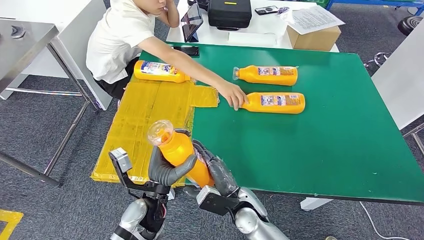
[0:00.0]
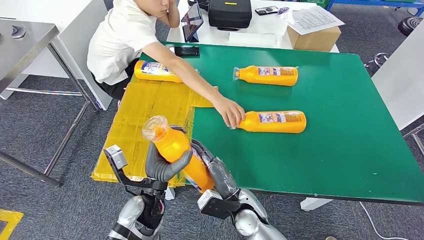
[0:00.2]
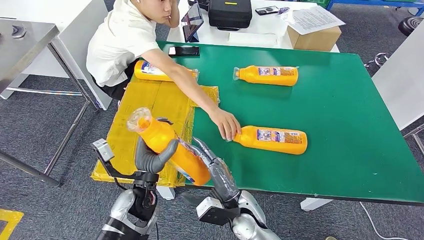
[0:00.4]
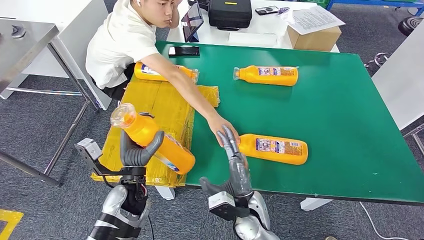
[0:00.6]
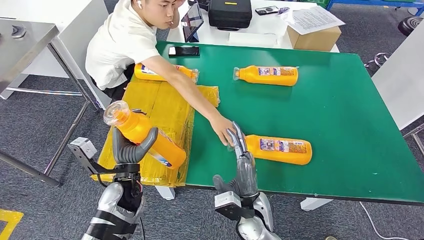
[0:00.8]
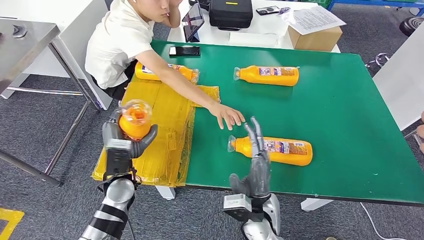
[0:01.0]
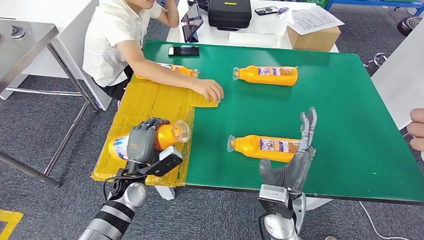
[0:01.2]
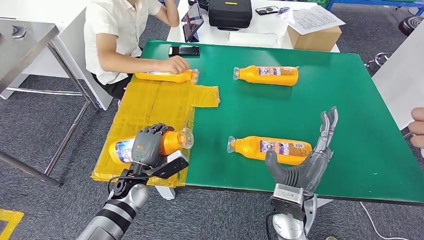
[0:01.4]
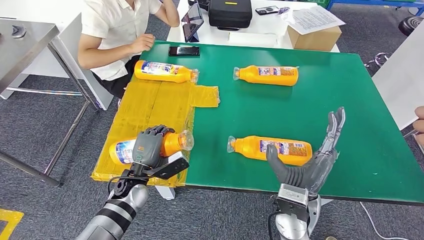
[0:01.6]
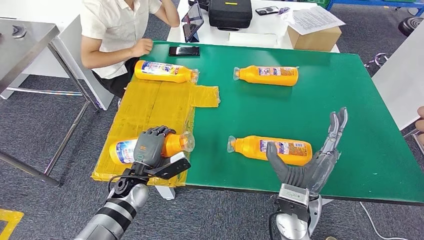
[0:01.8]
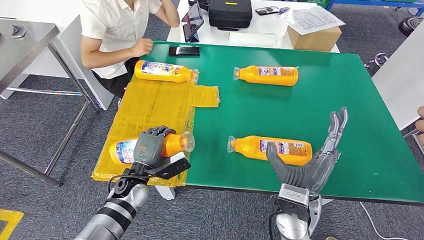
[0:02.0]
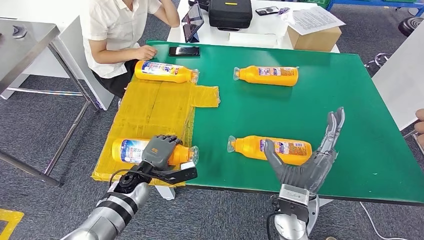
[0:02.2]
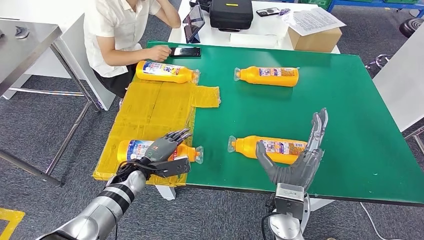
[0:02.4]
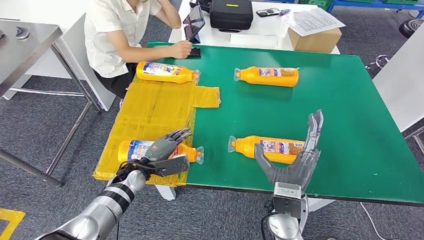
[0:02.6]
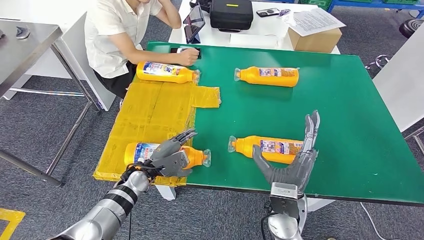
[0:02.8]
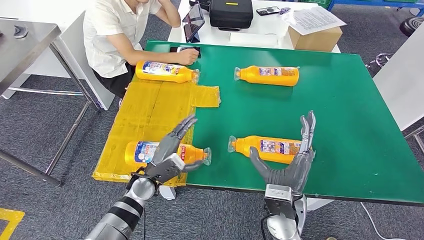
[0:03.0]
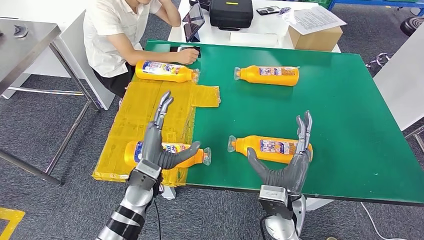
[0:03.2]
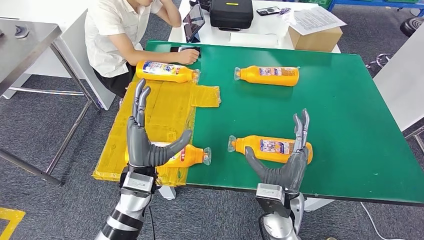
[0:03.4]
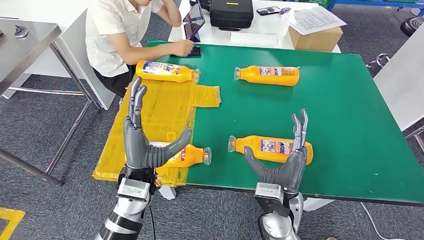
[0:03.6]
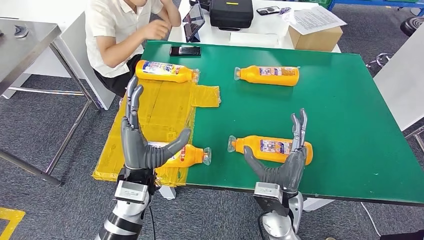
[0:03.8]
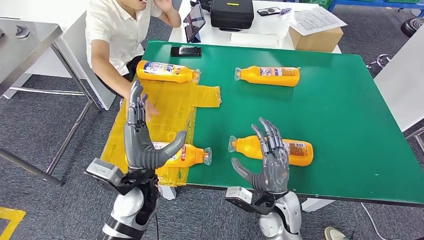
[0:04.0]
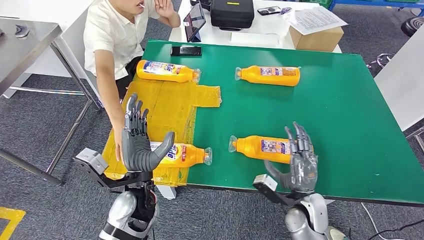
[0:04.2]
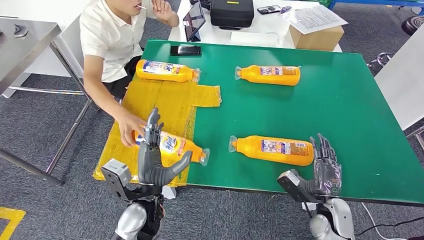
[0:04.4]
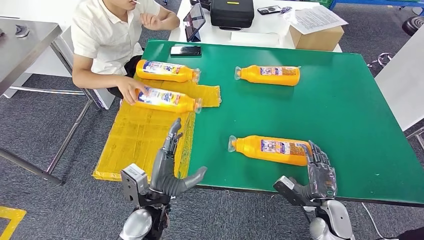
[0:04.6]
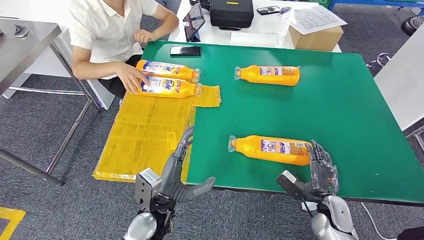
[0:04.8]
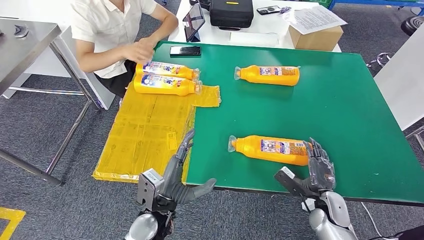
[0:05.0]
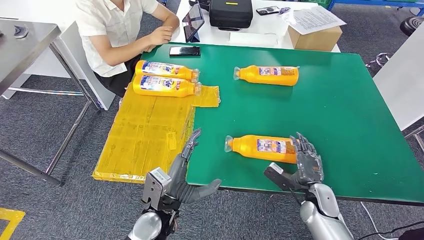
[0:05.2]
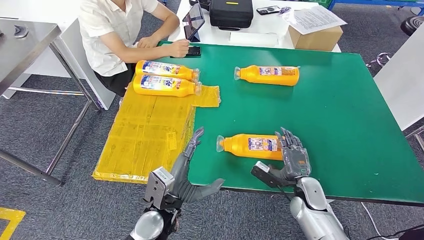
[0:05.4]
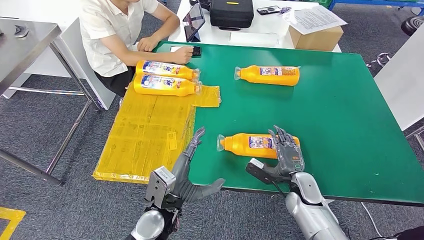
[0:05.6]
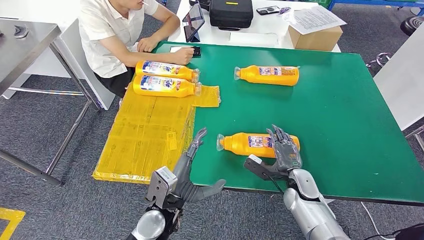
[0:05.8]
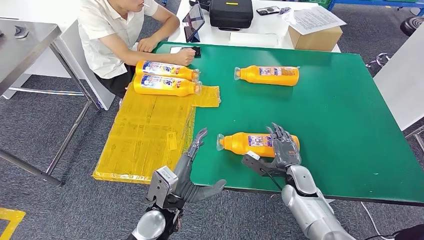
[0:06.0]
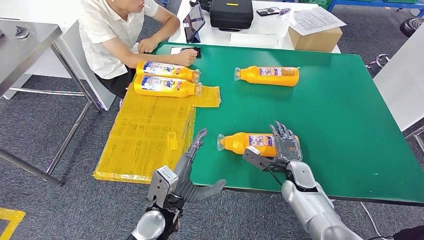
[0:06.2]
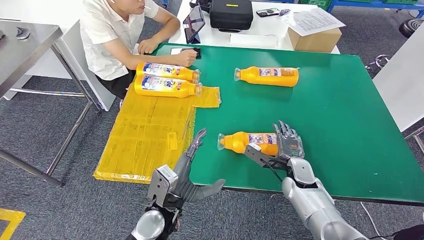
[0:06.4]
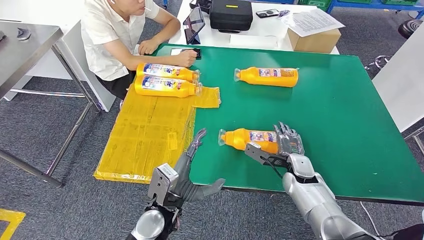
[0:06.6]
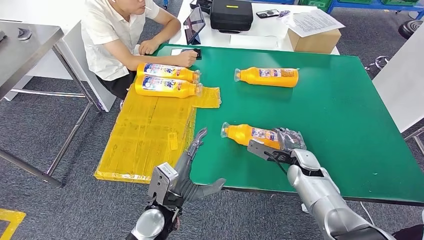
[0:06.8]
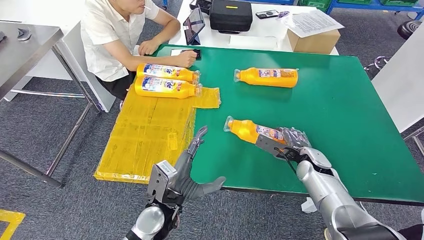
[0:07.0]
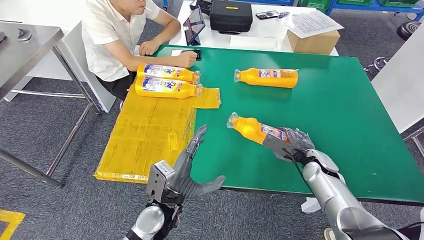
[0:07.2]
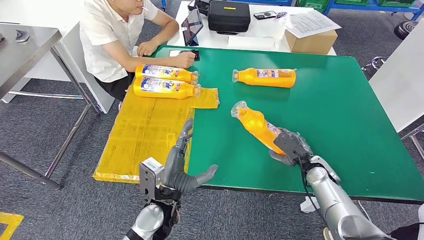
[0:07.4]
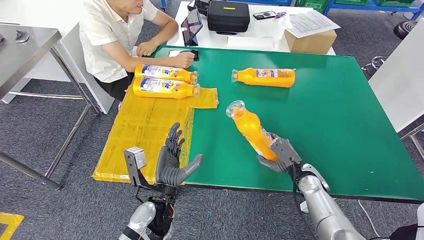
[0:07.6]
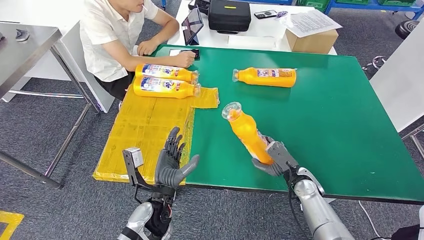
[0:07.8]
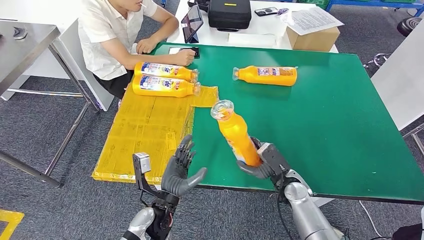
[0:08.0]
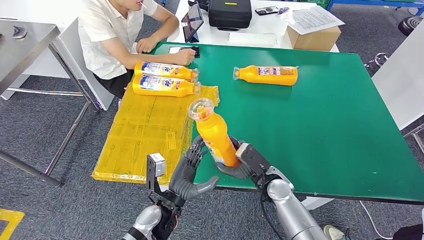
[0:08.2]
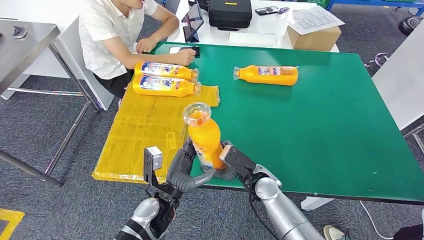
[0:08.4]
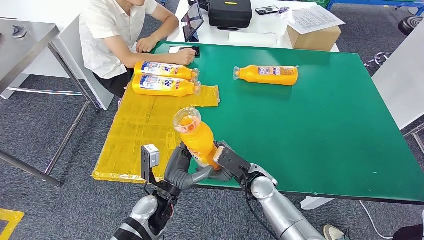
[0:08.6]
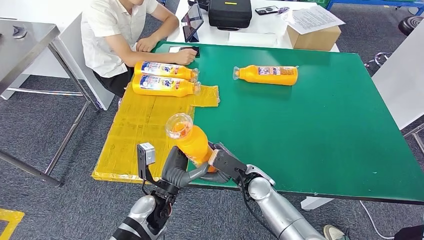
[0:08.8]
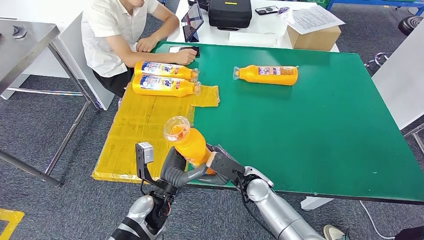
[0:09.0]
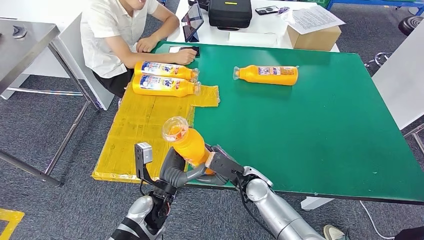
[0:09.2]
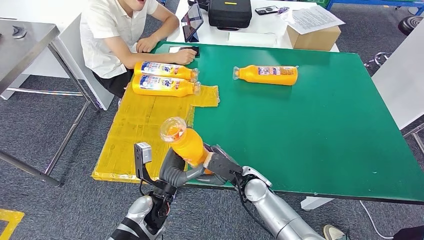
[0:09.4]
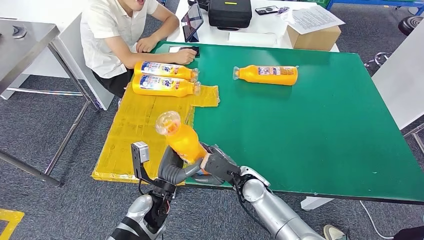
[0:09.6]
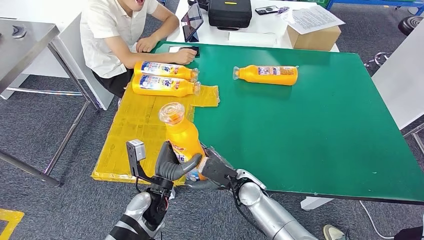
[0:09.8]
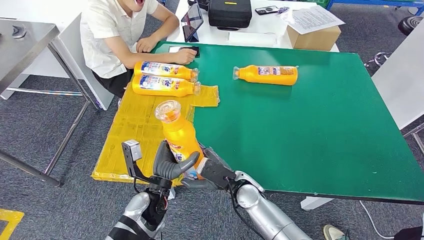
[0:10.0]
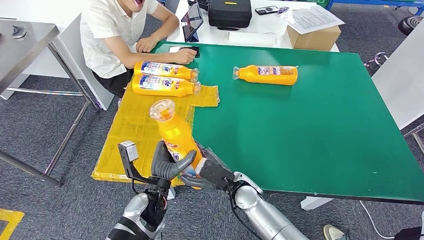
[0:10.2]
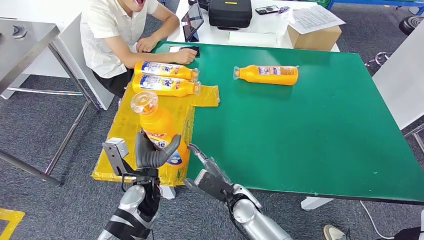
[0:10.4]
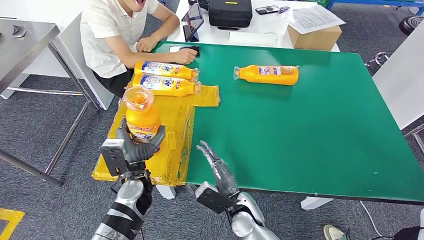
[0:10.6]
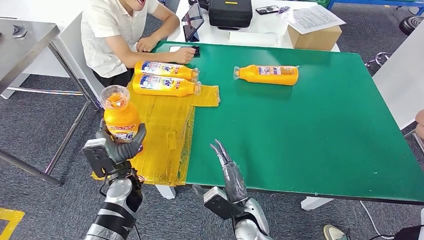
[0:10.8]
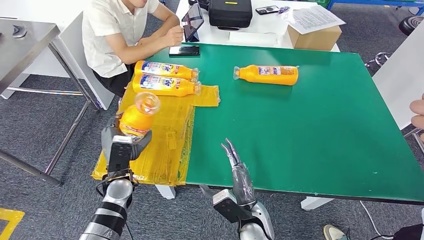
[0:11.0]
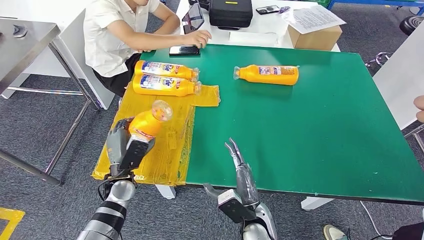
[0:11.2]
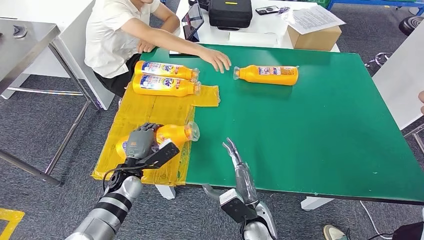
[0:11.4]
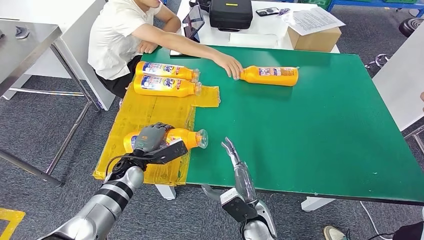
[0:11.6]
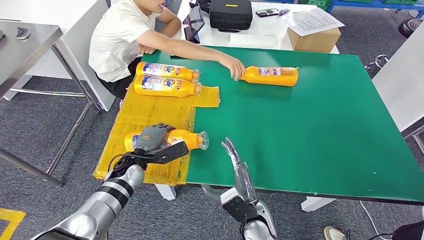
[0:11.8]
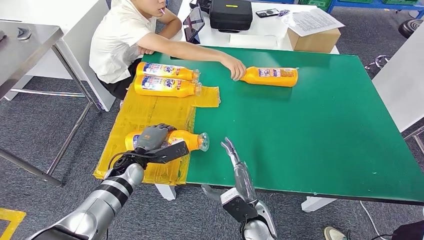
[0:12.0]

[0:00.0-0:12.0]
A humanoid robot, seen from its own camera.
Step, 0:00.0 to 0:03.0: Flip the fast-moving consumer goods bottle to the front side.
Step, 0:03.2 to 0:08.4: Pick up the fast-moving consumer goods bottle from the table.
0:09.0 to 0:10.4: The right hand changes place by roughly 5 cm.

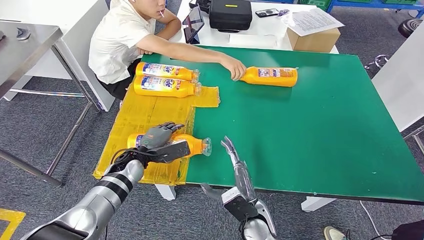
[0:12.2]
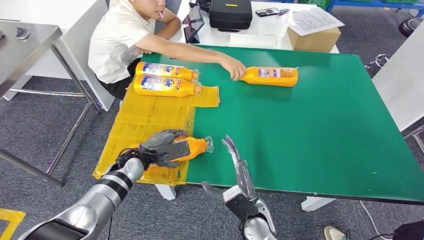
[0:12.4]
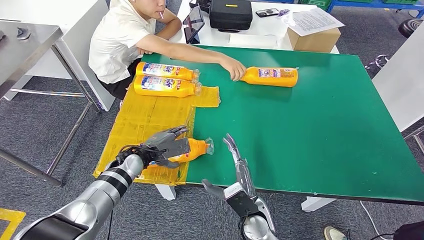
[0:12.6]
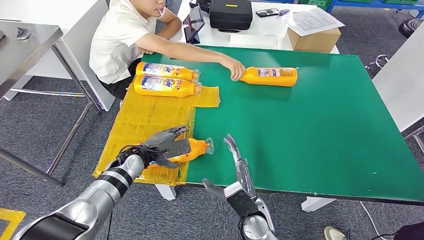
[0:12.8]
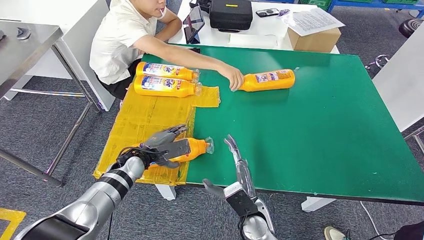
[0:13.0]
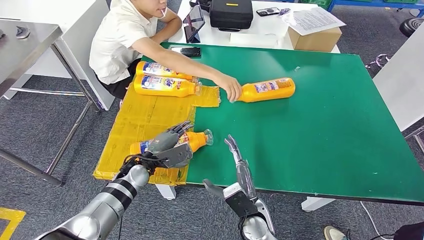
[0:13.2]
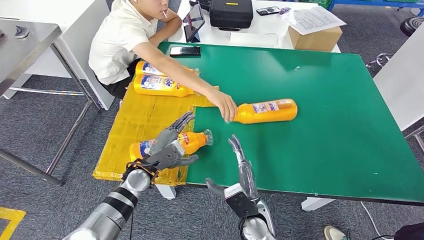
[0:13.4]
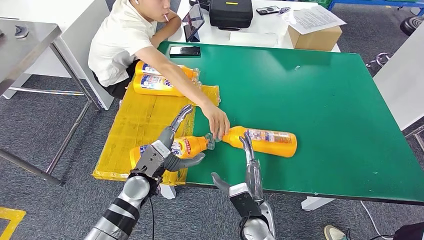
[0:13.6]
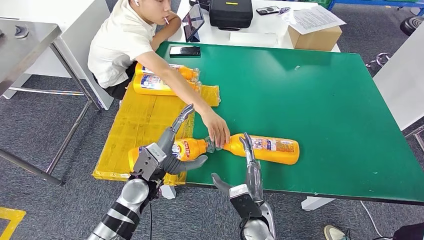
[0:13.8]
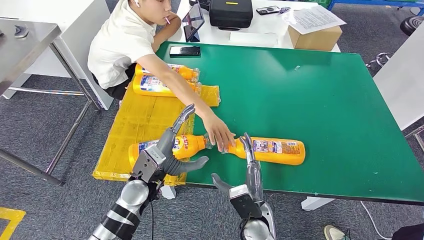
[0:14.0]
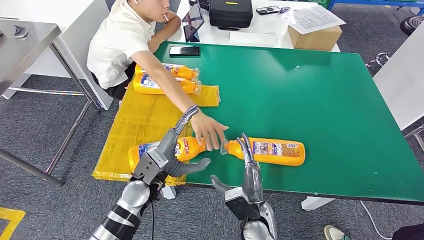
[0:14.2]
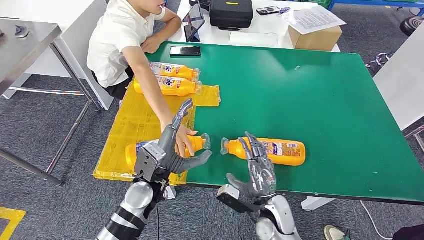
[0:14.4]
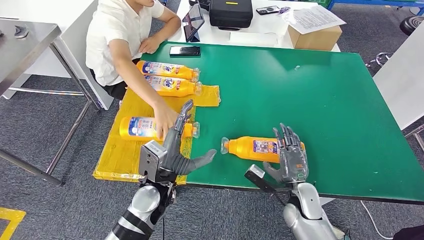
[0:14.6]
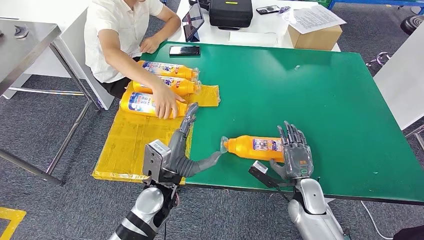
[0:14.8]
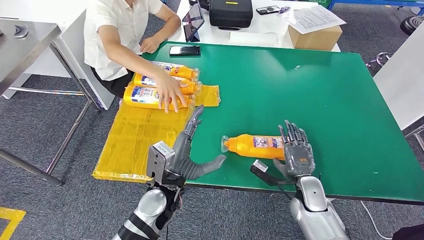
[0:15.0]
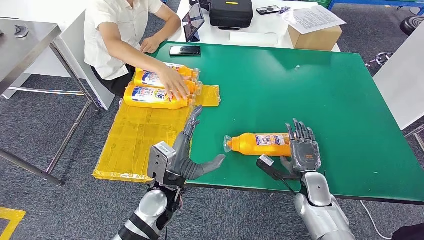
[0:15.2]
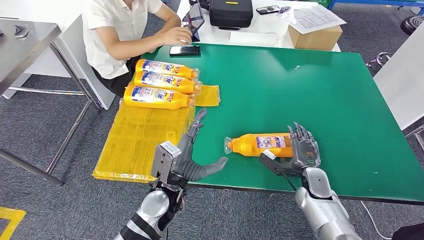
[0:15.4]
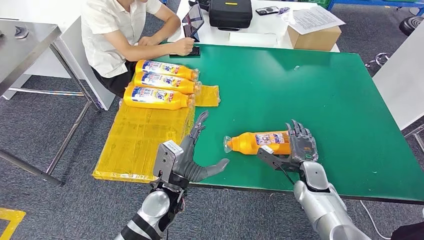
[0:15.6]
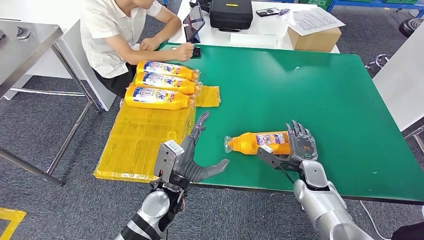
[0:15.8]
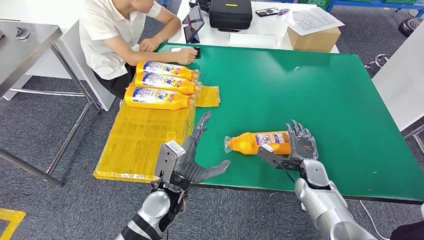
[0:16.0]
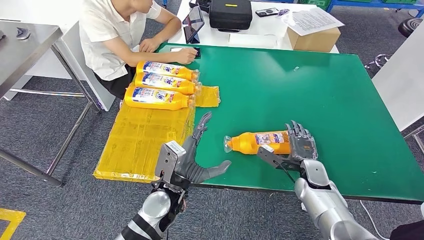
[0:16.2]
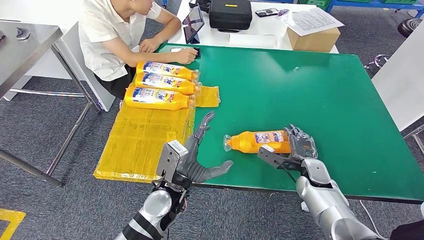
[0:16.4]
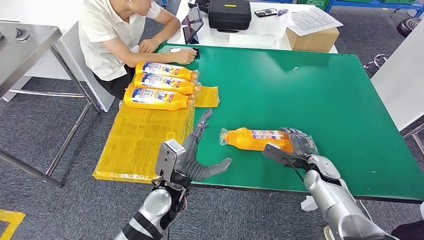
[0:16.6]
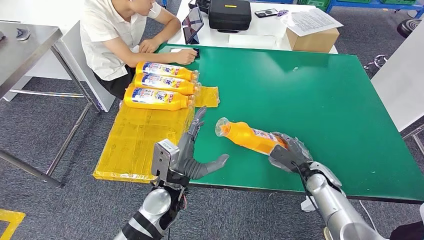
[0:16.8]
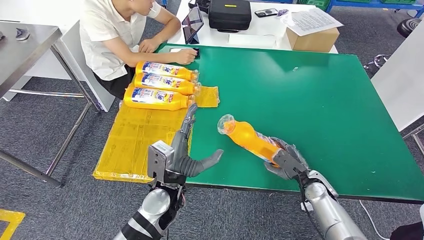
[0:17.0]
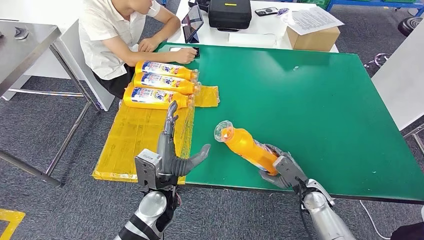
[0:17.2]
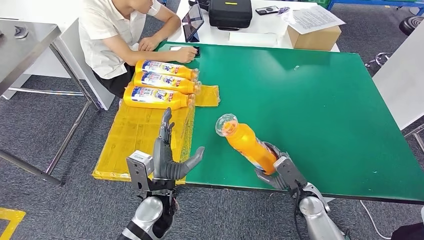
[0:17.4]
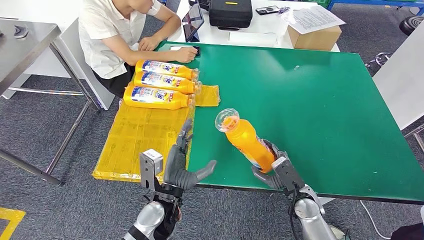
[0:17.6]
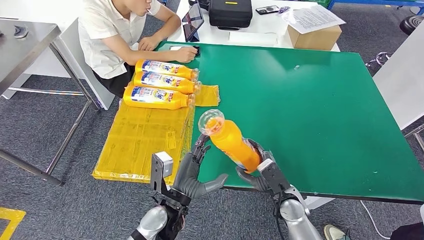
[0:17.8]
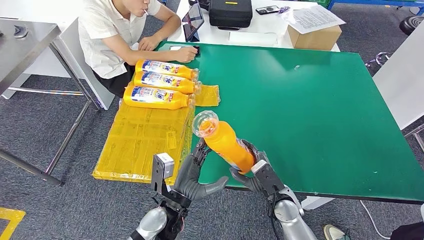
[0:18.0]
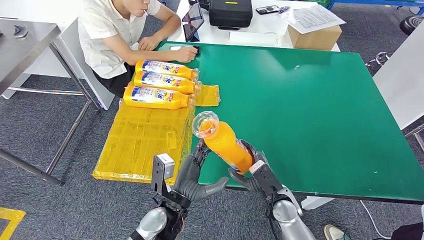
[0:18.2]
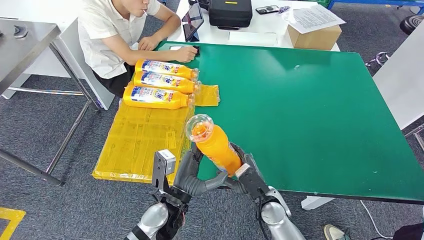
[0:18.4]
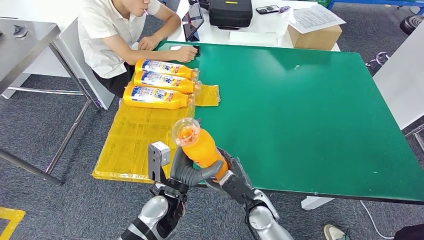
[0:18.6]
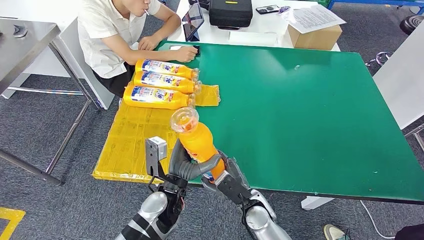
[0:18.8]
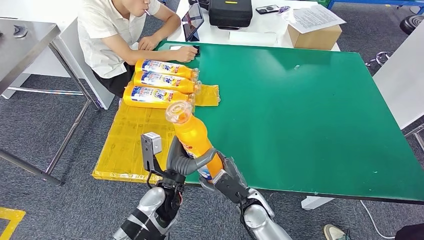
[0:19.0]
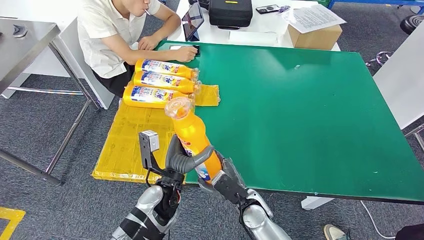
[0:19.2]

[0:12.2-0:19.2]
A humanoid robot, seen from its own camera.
Step, 0:13.4 to 0:17.6: Pick up the fast-moving consumer goods bottle from the table.
0:17.8 to 0:19.2: The right hand shifts about 10 cm to the left.
